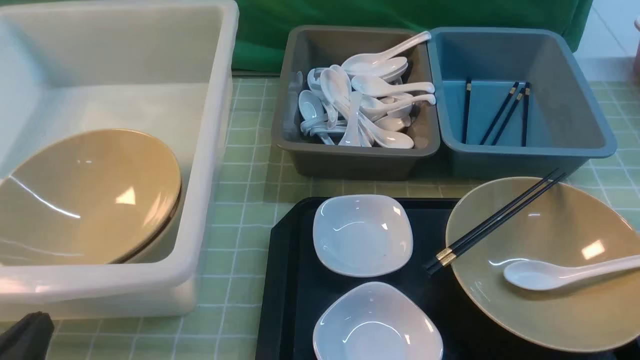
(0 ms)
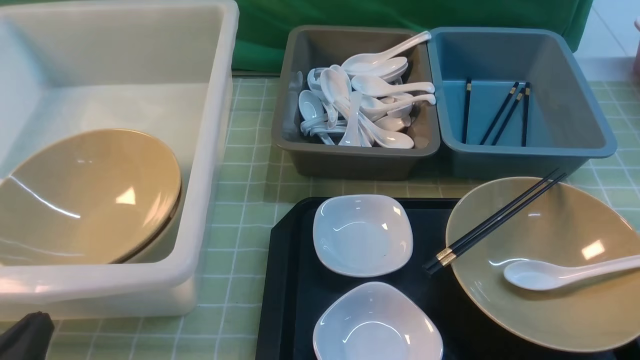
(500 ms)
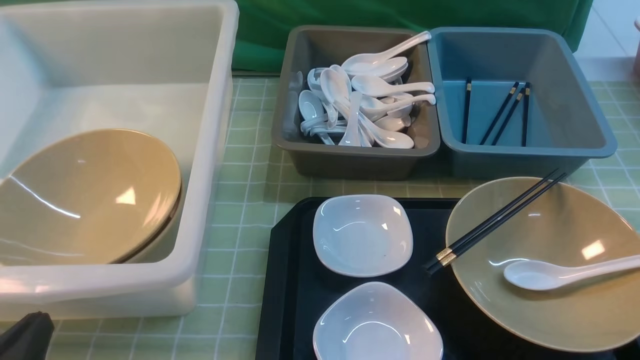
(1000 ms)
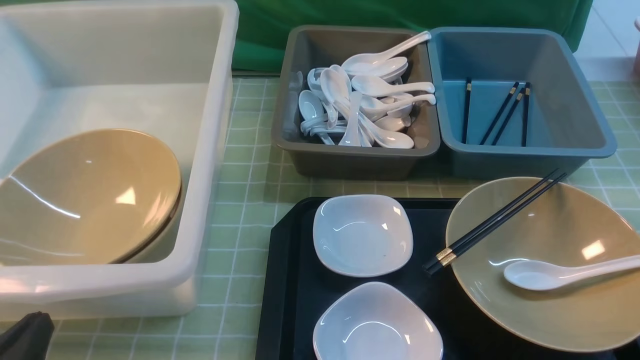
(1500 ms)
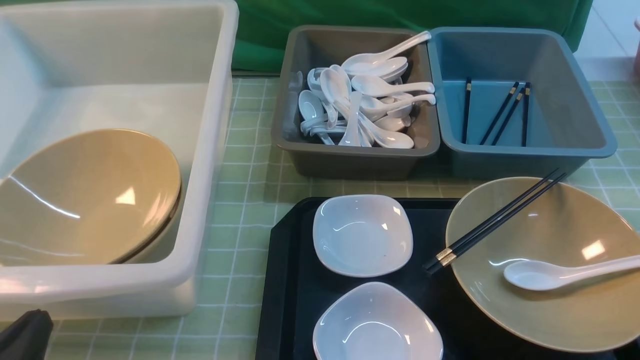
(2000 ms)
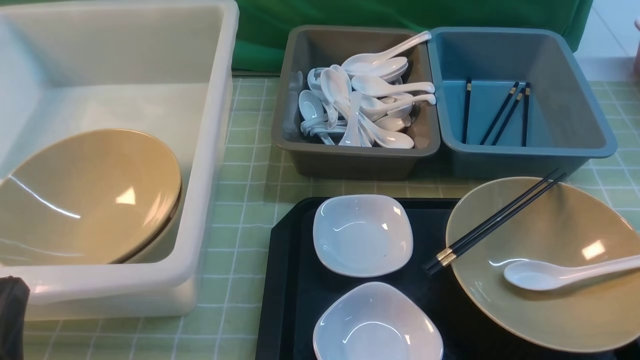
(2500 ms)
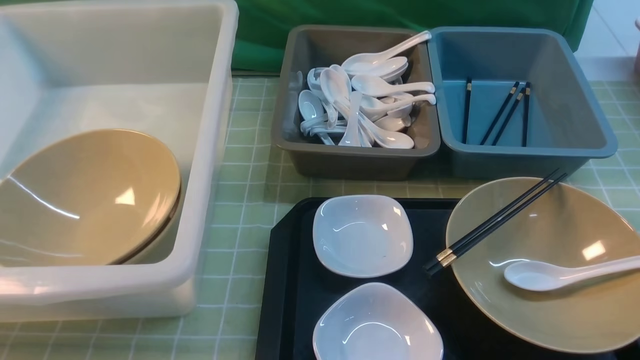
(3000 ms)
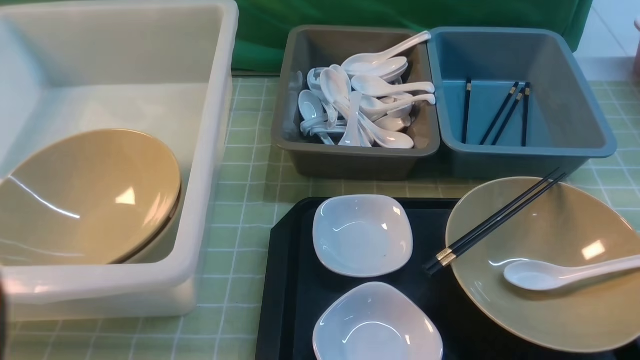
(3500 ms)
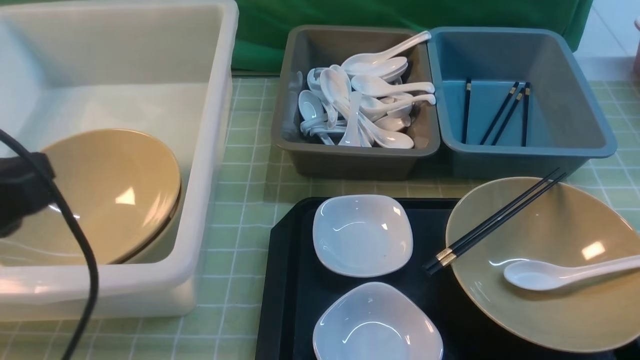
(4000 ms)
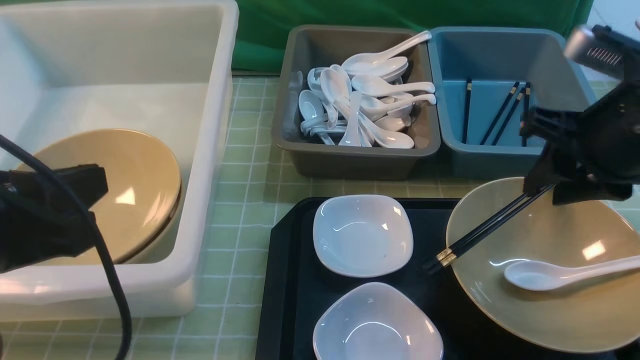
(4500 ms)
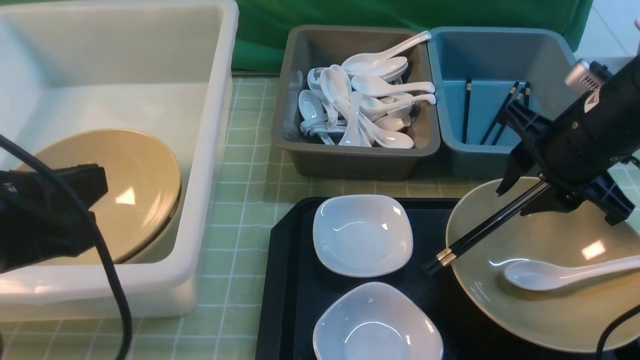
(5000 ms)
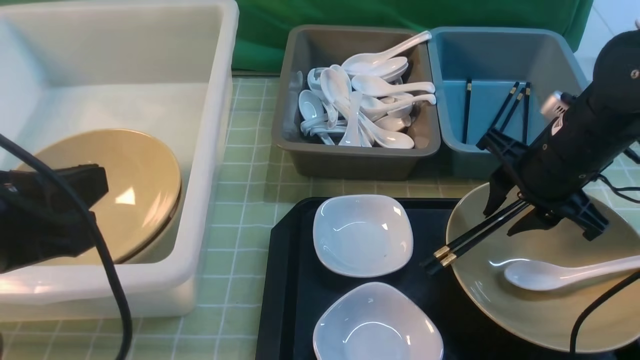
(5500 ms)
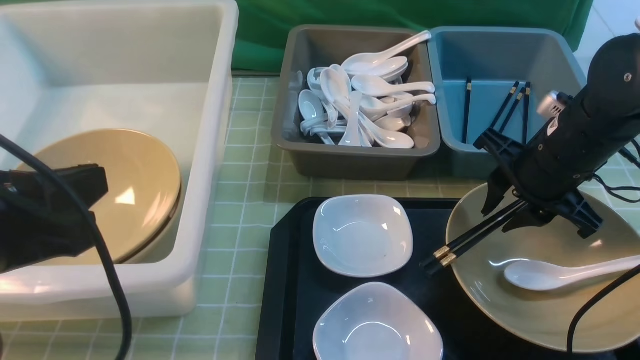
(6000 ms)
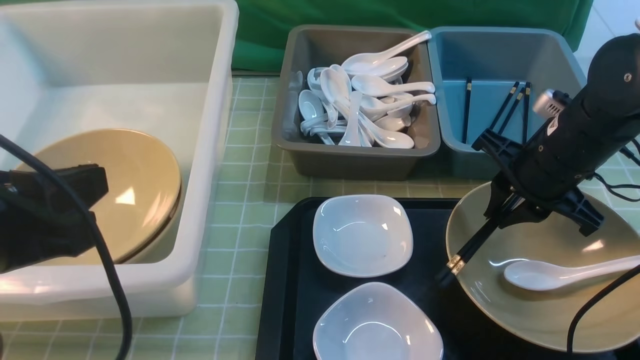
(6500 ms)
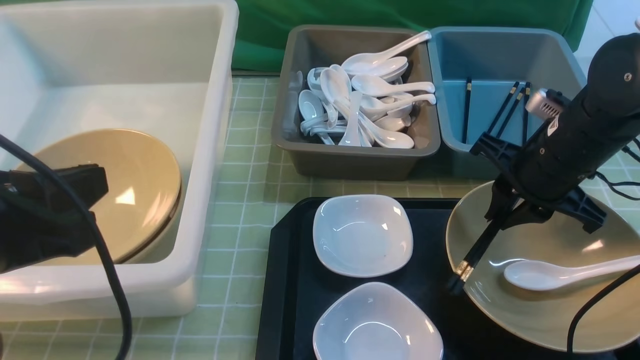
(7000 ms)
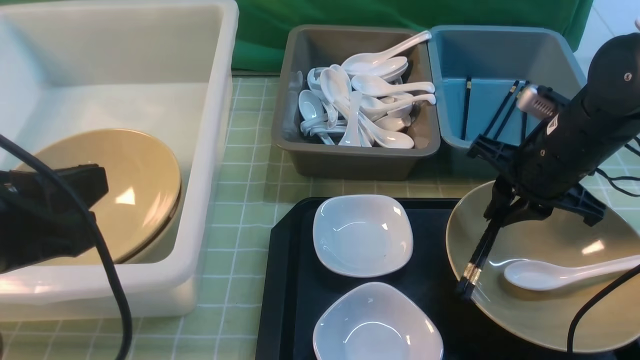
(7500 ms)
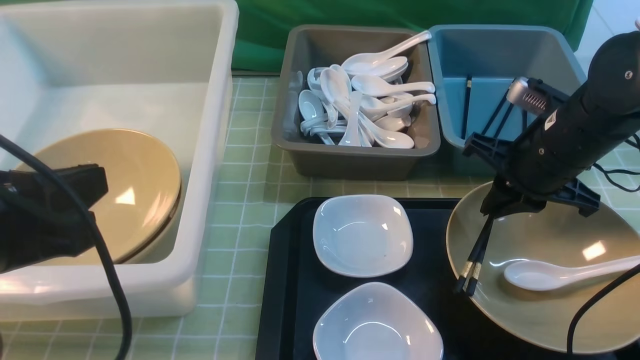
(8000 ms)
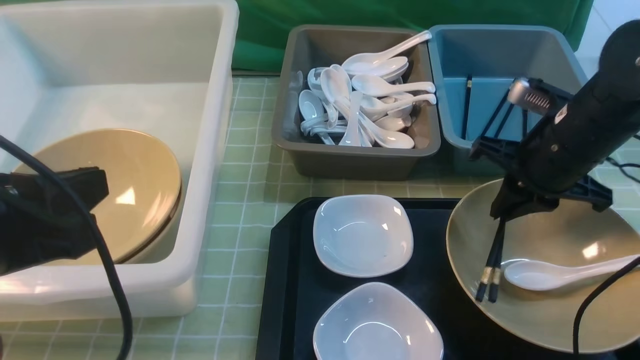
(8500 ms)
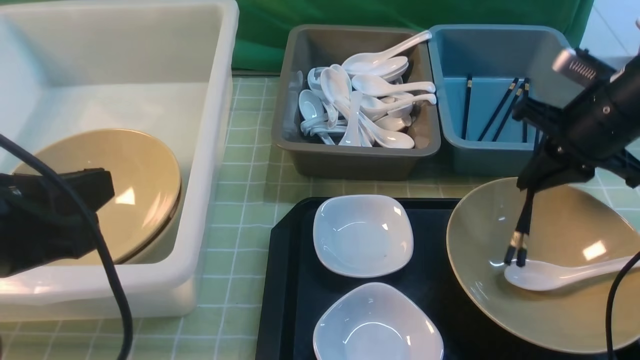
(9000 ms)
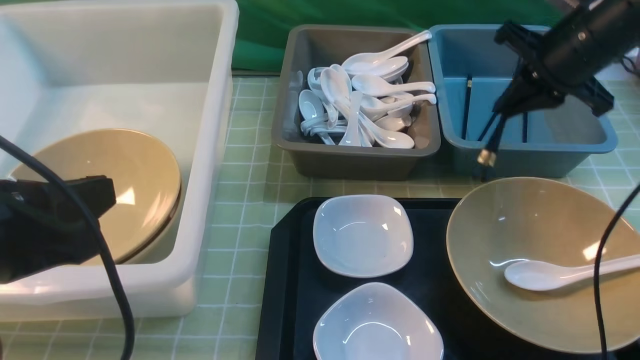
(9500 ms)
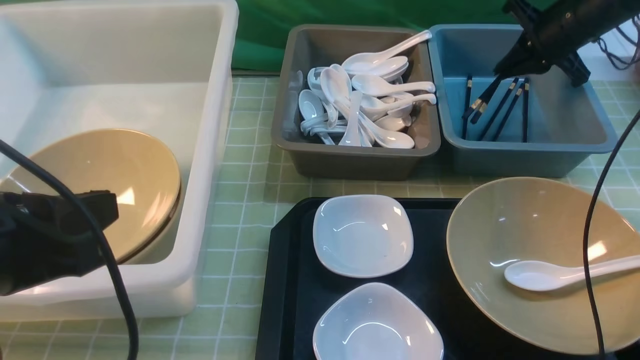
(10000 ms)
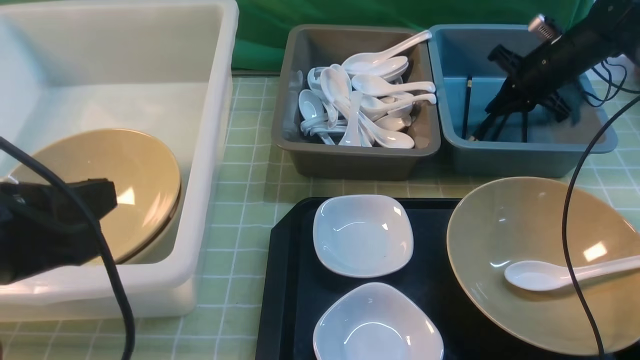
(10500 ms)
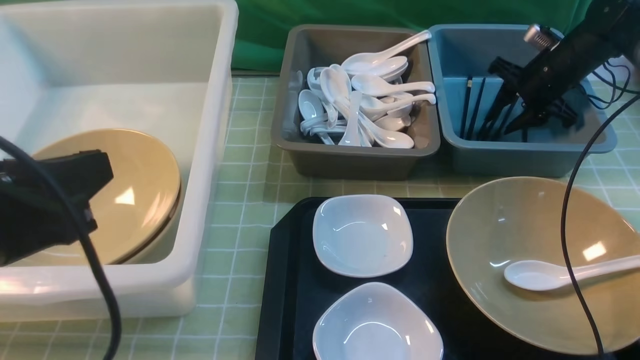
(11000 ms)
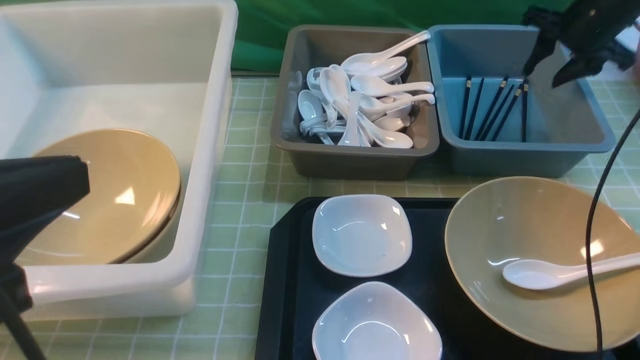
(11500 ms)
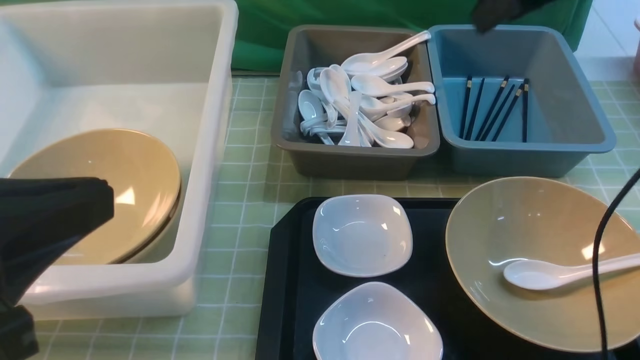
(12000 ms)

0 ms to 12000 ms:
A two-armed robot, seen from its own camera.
Task of the whole recording: on green table put chopsticks spoon bowls plates into blue grey white boxes.
Step, 0 ms to 8500 ms: use the right arm to grab the chopsticks.
Step, 9000 ms to 11500 ms: use the right arm to put the chopsticks into the small storage box on the right.
0 ms to 2000 ms: The two grippers keep their place.
2000 ms to 4000 ms: The left gripper heads upward and forward, covering about 15 cm.
4000 ms to 6000 ms: The right gripper shifts approximately 20 cm forward, downward and to the left.
6000 ms to 8000 ms: The right gripper closes.
8000 ms to 10000 ms: The right gripper is displaced forward and to the right by approximately 20 cm.
10000 ms to 12000 ms: The left gripper shifts about 5 cm upward. The right gripper moves upward, backward and to the left, some 20 cm, and opens its fingers.

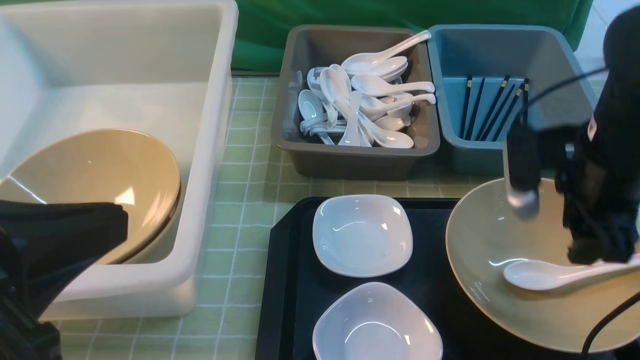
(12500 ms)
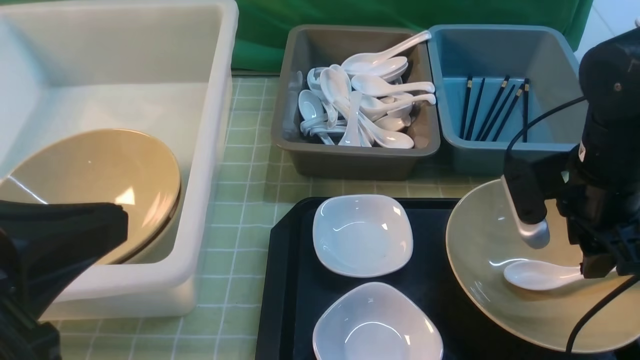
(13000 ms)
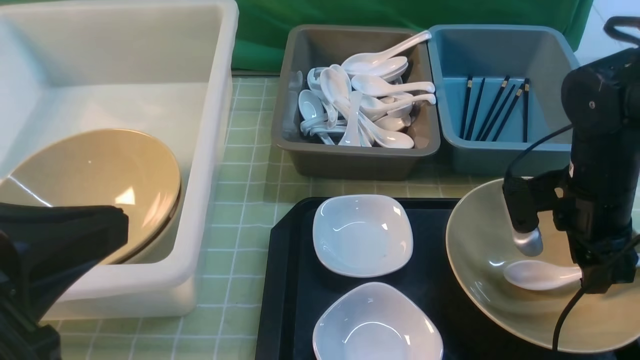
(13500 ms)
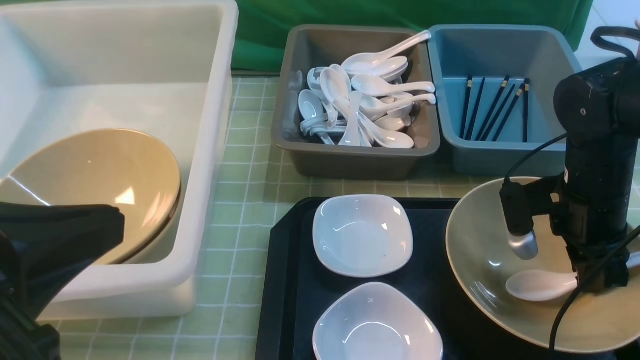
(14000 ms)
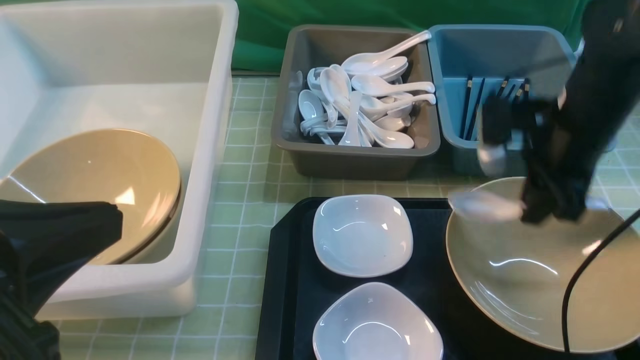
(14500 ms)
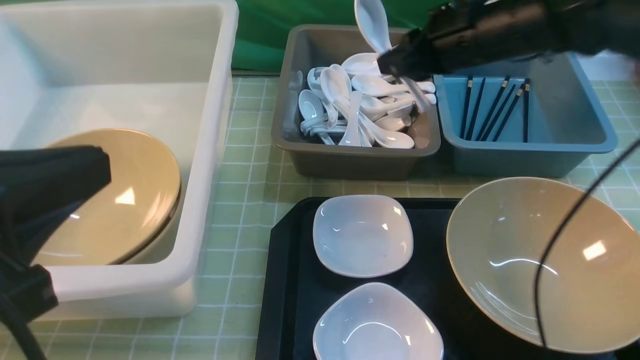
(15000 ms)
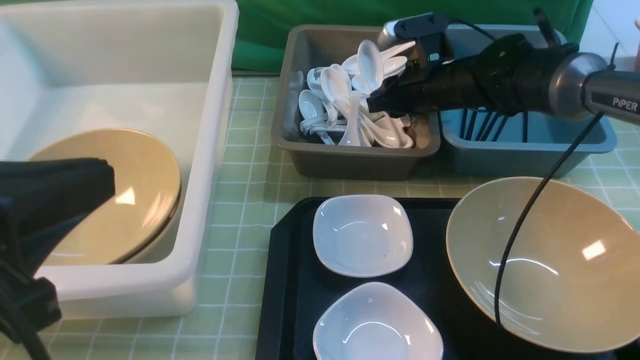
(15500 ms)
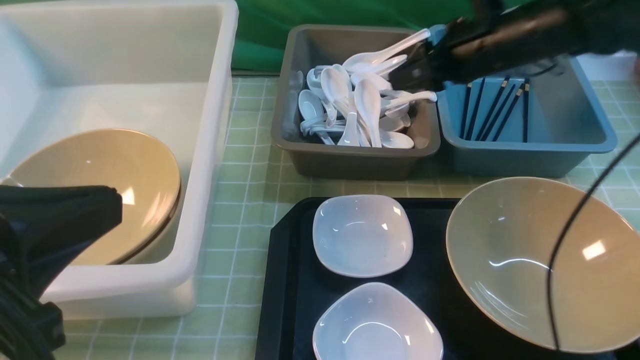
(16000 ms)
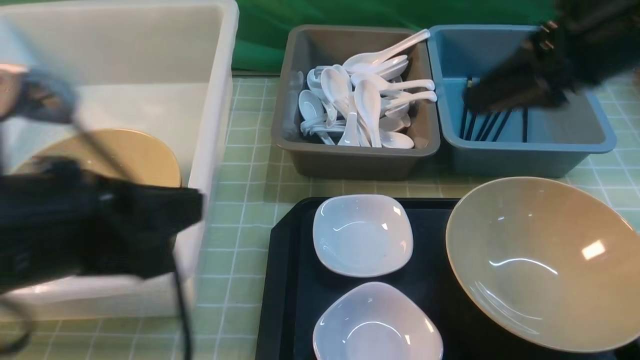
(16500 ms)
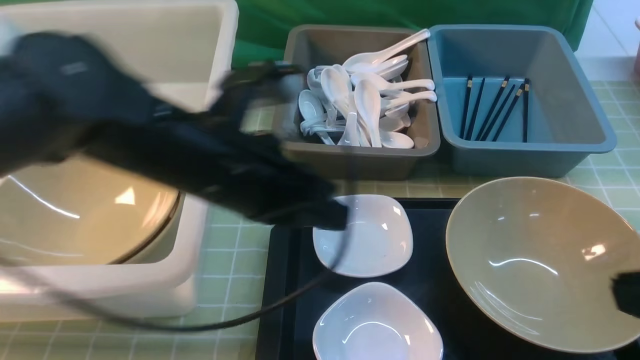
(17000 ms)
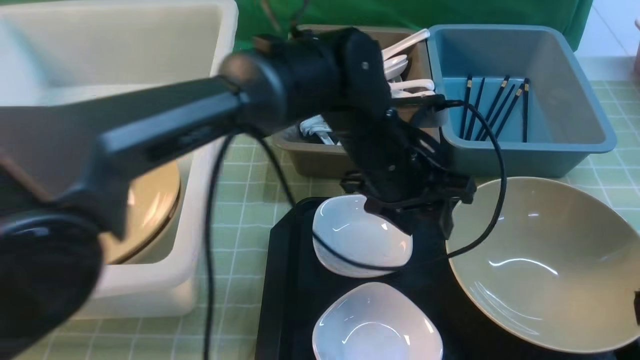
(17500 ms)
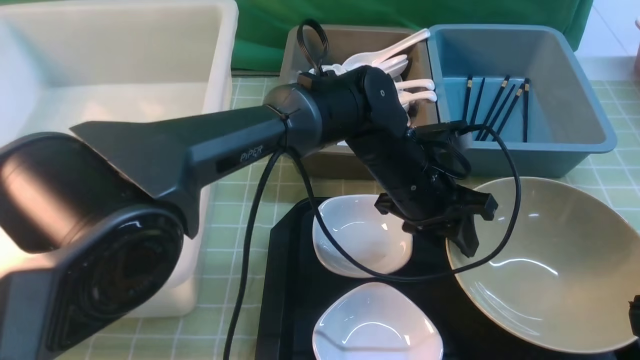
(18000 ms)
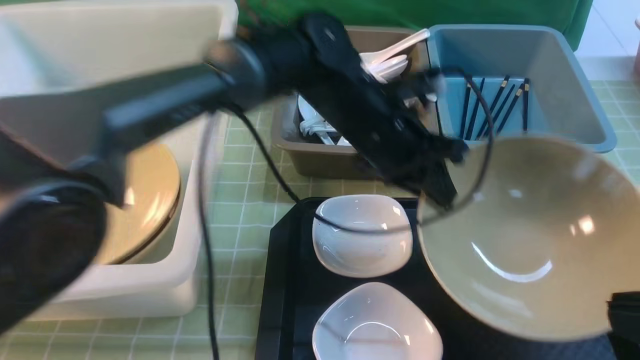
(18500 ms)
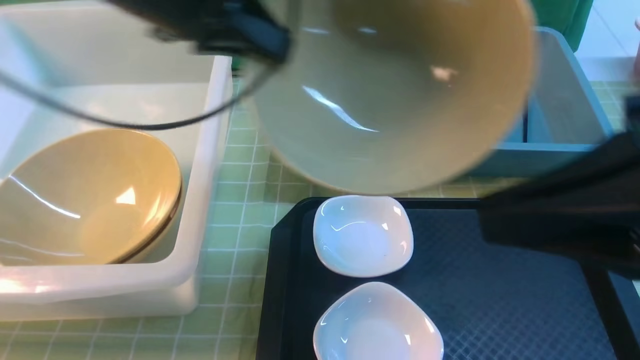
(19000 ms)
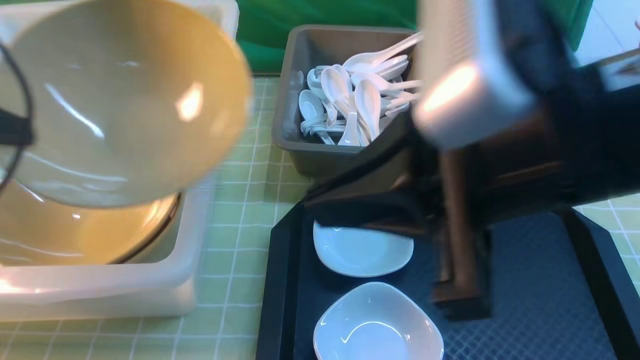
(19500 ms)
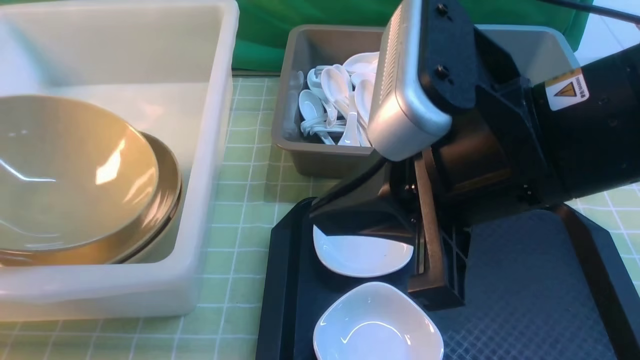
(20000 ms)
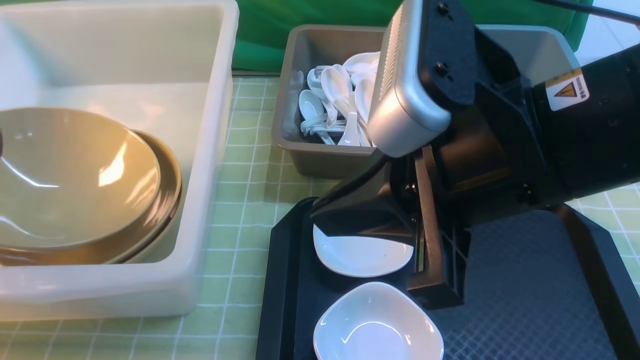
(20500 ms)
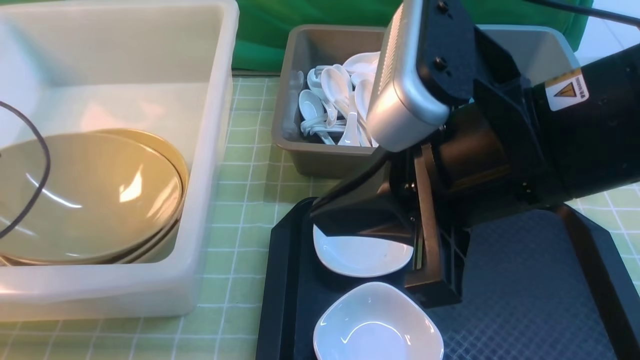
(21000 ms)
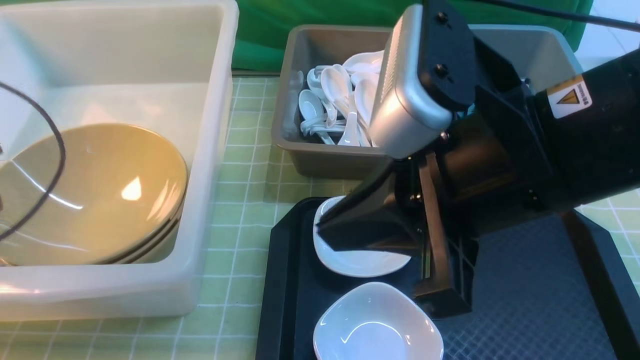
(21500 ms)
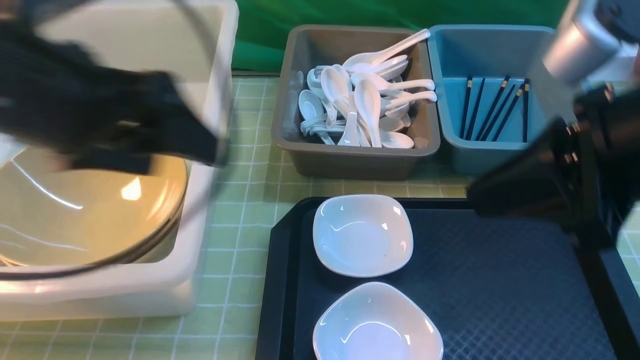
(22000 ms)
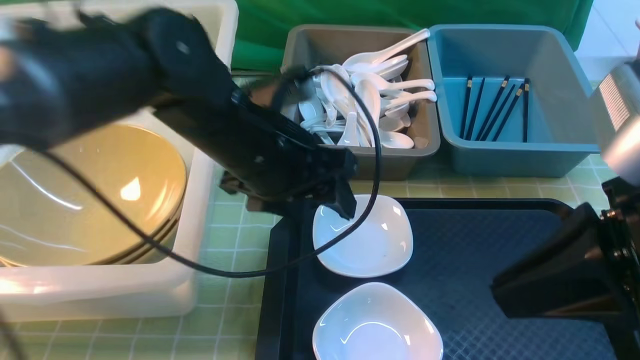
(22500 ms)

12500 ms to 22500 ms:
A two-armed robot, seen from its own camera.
Task of the whole recording: on green table put chopsticks spoon bowls plates into blue grey white boxes.
Step, 12500 ms to 14000 ms: use the right arm to grab the soup spoon in the middle.
Step, 14500 ms to 16500 ms: use the right arm to put the soup spoon into the small storage box in the middle.
Step, 17000 ms to 18500 ms: use the left arm to grab the yellow noodle bowl on the left.
Step, 19000 ms to 22000 ms: use the left arm to put the noodle bowl into the large storage box on the left.
12500 ms to 14500 ms: The right gripper goes downward and returns, approximately 10 cm each way, and closes.
14500 ms to 16500 ms: The left gripper moves forward, about 5 cm. Meanwhile the right gripper shifts about 15 cm upward and backward.
16500 ms to 18500 ms: The right gripper heads backward, covering about 20 cm, and closes. The left gripper moves forward and to the right, some 30 cm, and opens, then closes once more.
18500 ms to 20500 ms: The left gripper shifts roughly 40 cm to the left. The right gripper heads to the left and forward, covering approximately 20 cm.
20500 ms to 22500 ms: The left gripper is displaced to the right by about 35 cm, and opens its fingers; the right gripper heads to the right, covering some 10 cm.
